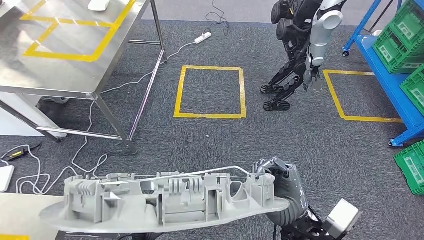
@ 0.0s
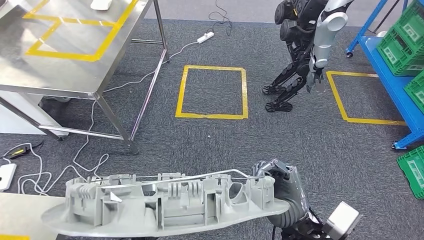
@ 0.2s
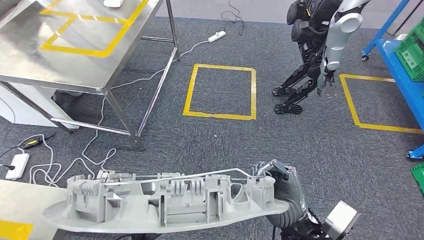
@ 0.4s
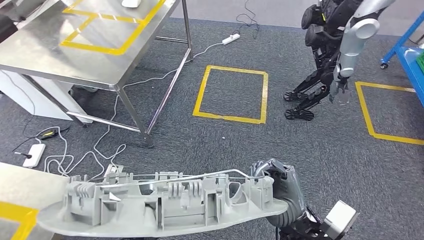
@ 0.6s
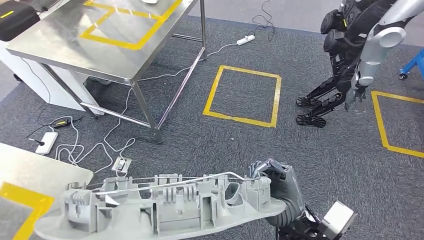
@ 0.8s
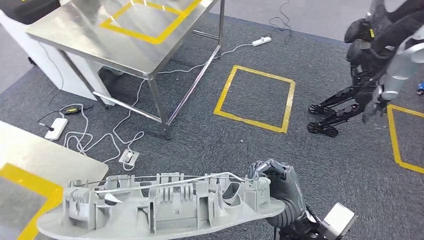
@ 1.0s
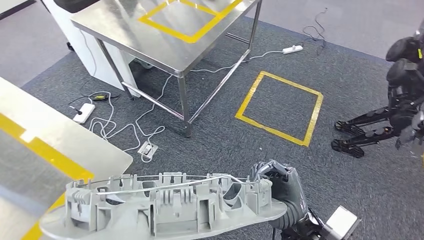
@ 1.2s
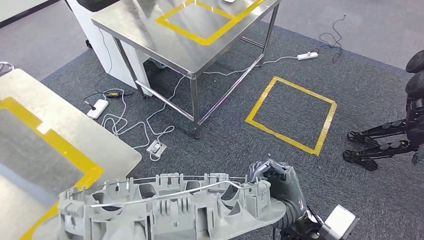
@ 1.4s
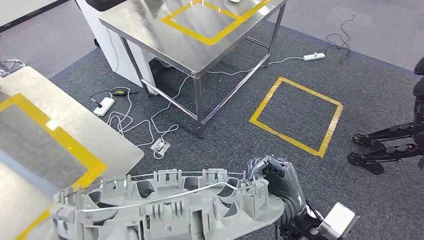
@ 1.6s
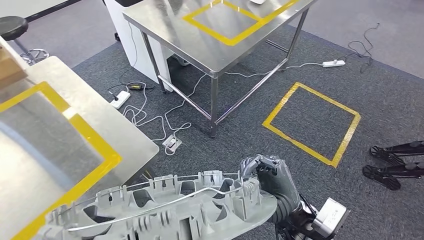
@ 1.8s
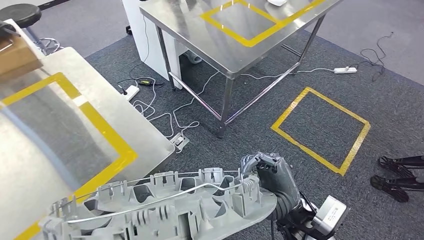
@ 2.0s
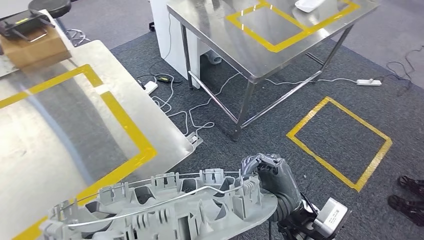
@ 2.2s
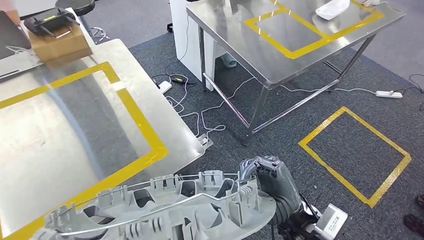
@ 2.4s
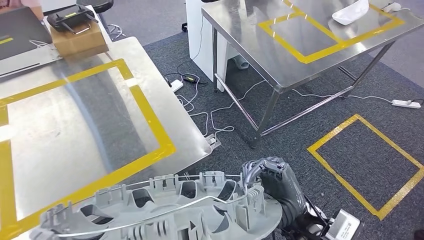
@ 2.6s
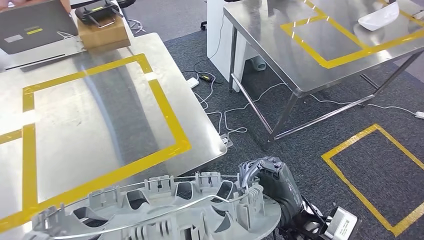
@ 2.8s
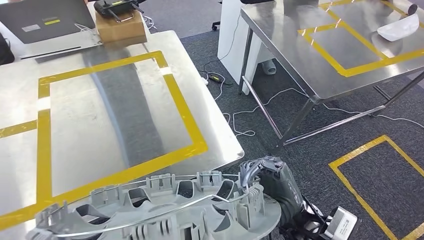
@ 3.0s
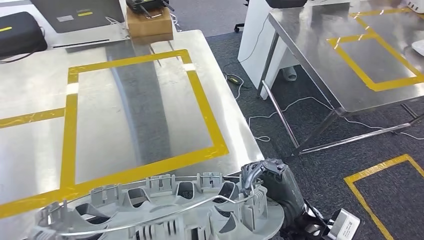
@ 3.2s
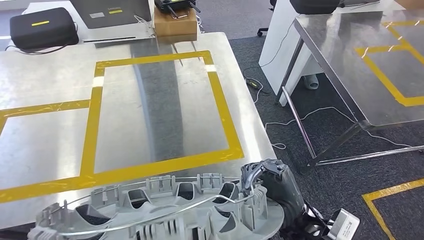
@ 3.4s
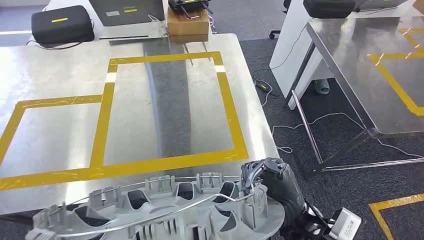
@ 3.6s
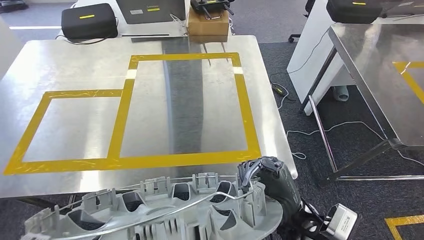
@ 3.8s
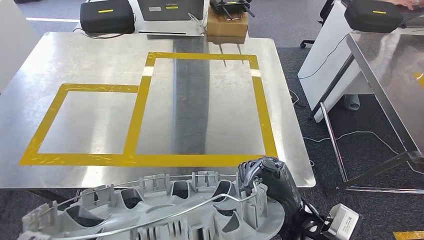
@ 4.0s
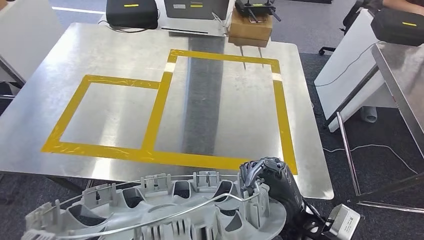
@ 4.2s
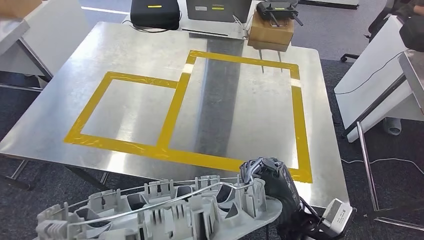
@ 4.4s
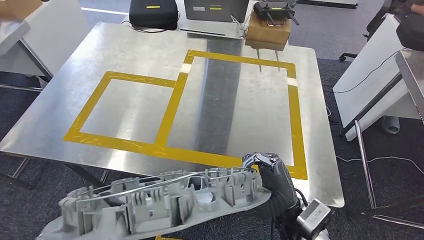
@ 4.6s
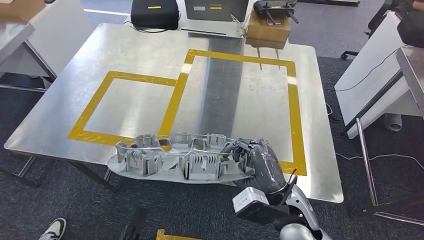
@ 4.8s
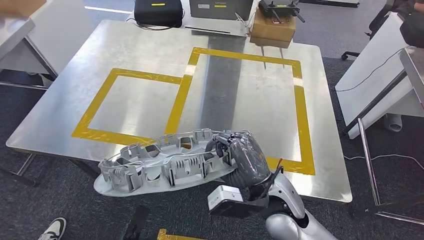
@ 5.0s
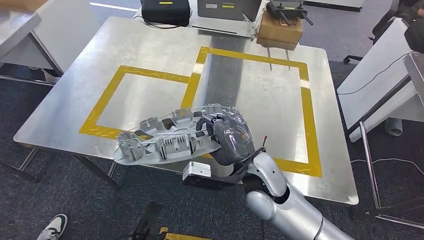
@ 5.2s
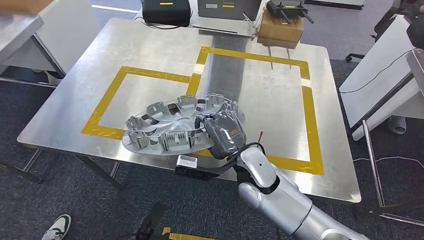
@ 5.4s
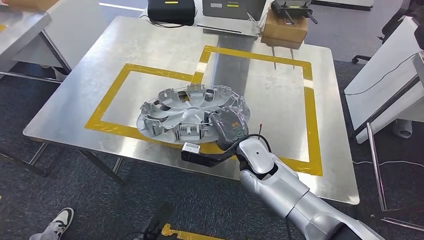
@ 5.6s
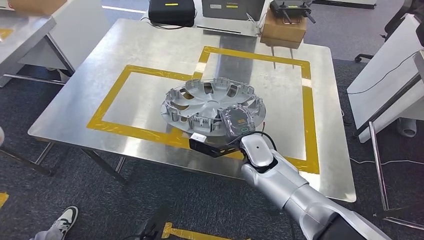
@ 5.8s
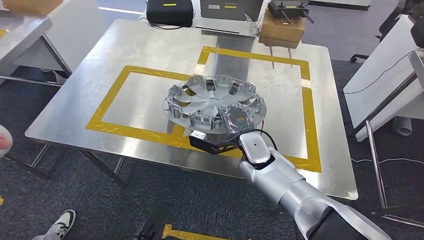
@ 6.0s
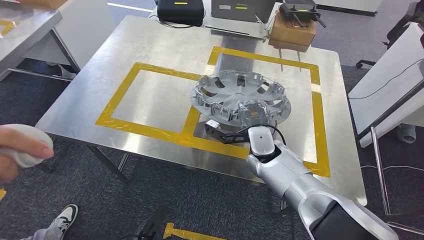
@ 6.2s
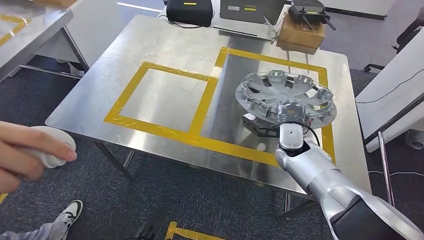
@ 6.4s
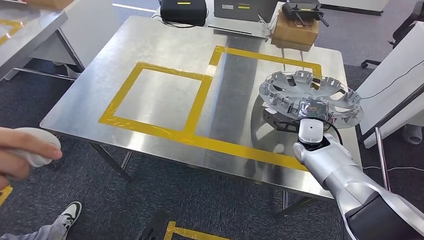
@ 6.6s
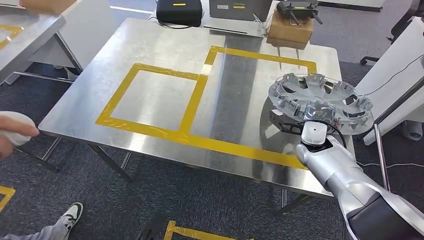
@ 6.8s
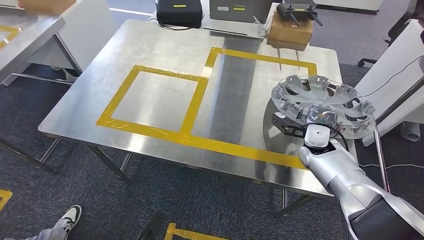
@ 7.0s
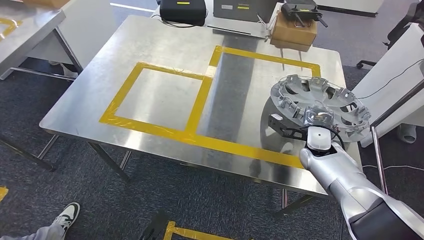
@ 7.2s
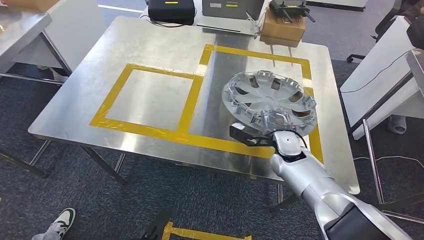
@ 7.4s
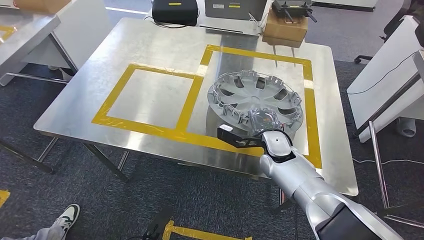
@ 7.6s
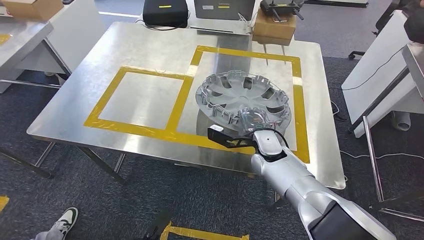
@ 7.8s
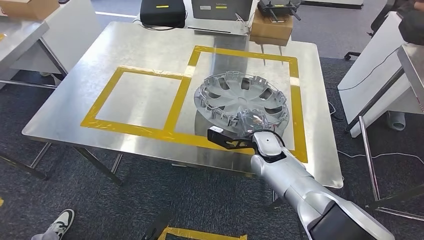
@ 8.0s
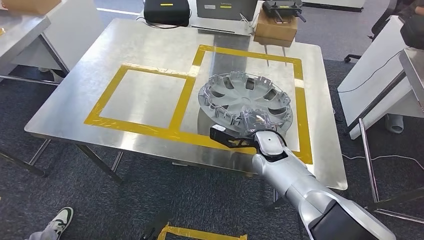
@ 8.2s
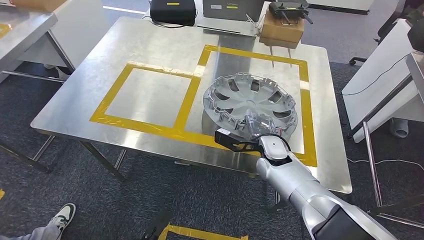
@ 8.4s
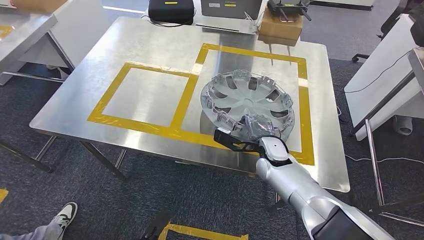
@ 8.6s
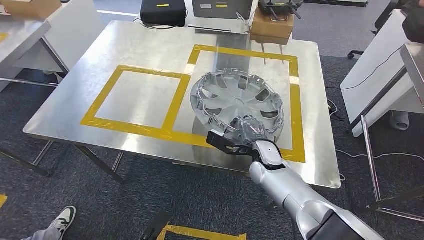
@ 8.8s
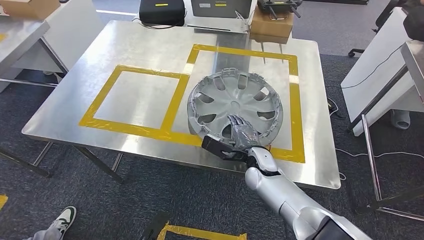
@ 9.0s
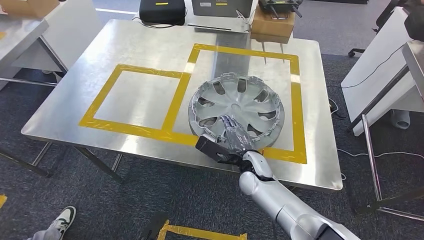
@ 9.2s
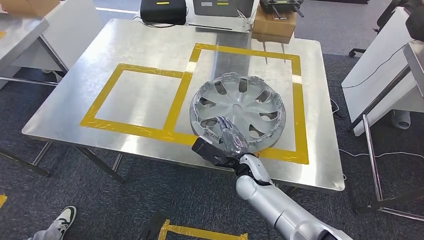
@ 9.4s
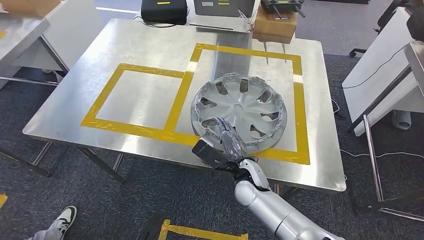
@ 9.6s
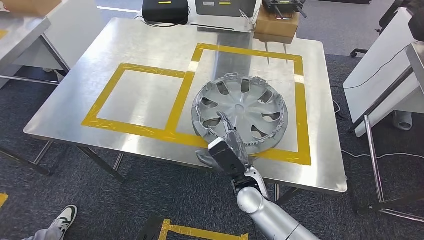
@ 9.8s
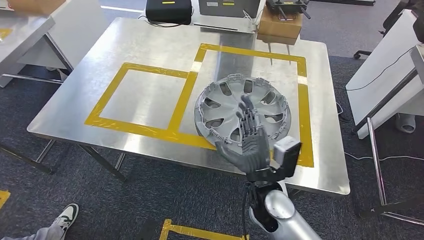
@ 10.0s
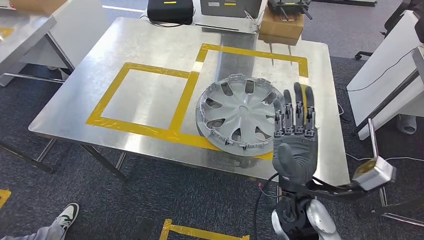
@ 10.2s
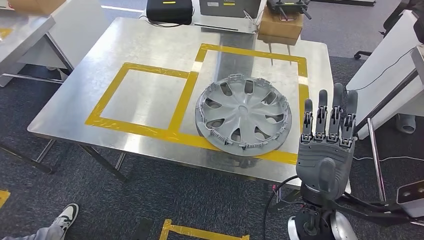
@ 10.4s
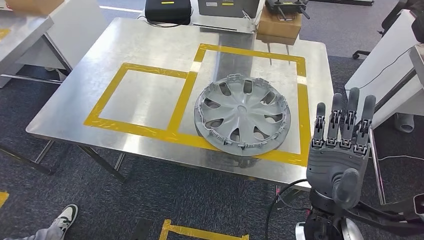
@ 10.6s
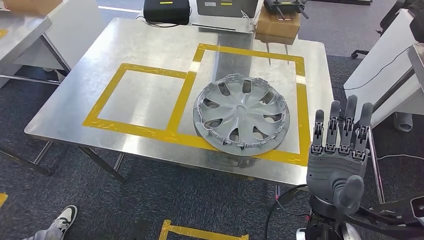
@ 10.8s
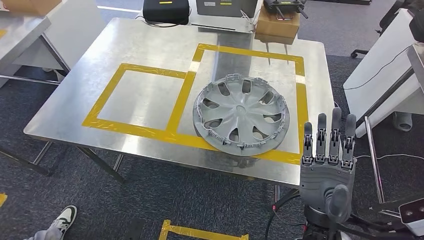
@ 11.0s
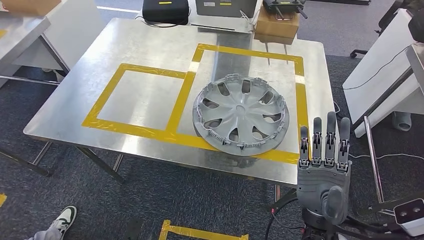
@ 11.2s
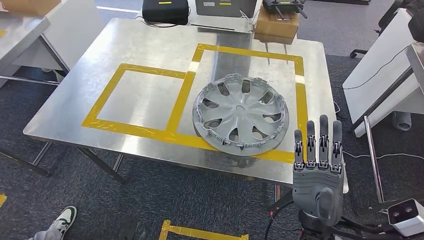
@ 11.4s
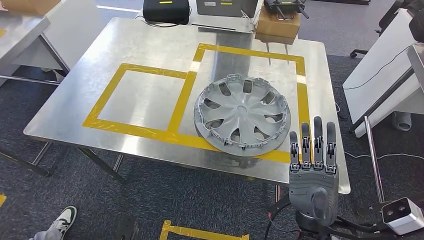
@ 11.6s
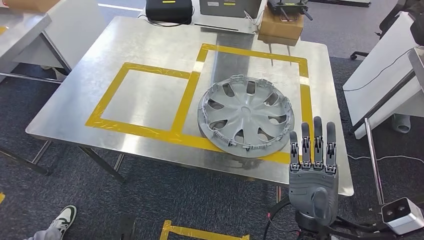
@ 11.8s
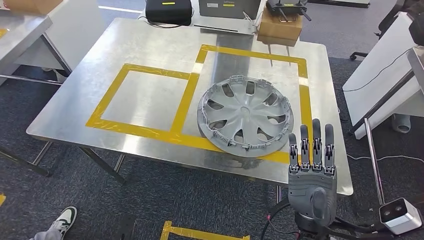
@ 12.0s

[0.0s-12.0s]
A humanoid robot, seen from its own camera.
Step, 0.0s to 4.0s: Move the small component to the workbench.
Step, 4.2s to 10.4s: Insert the small component into the corresponding slot on the workbench.
10.4s to 12.0s: The right hand moves downward, some 5 cm.

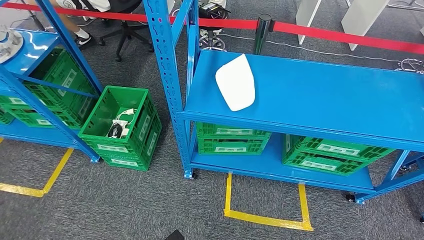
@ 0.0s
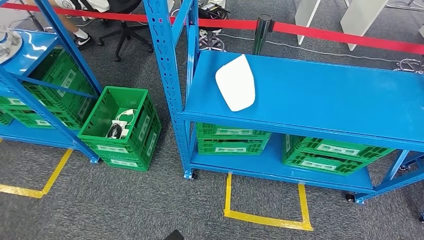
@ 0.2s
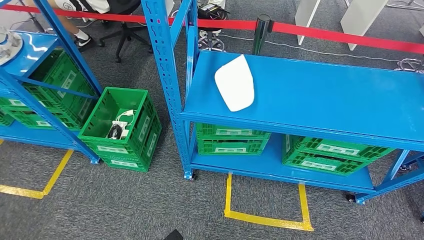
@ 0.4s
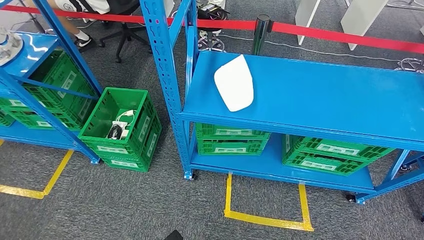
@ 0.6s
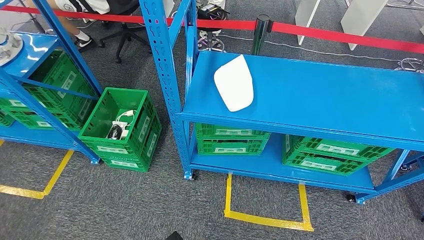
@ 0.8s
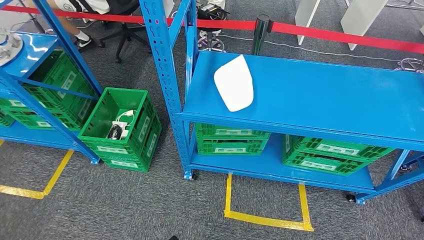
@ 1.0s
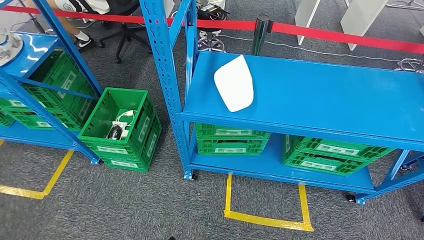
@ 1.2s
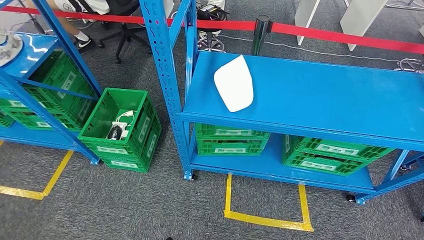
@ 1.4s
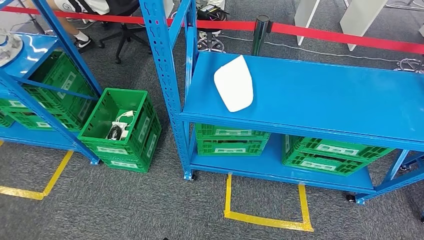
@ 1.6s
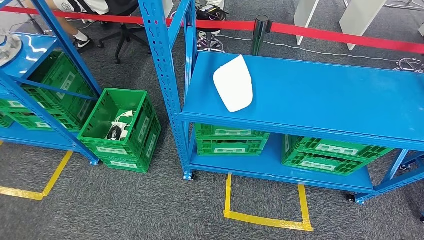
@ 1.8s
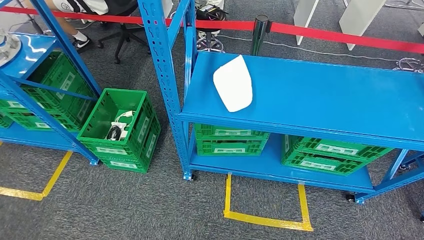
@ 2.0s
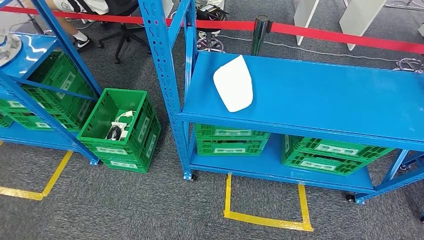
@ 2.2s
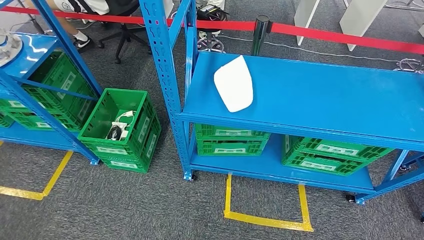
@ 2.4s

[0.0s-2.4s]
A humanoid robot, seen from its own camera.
Step, 0.0s to 2.4s: Return to the initial position at the workbench.
0.0s to 1.2s: The hands move only a little.
1.2s to 2.4s: The left hand goes roughly 5 cm backward.
